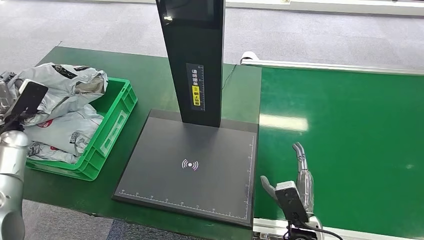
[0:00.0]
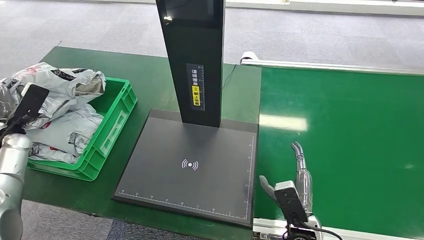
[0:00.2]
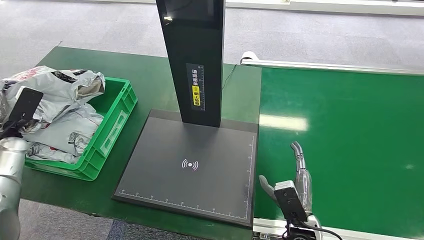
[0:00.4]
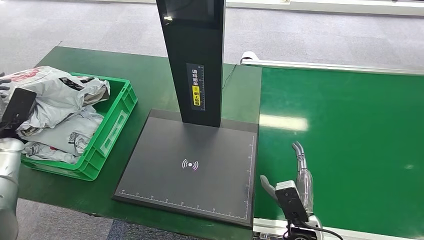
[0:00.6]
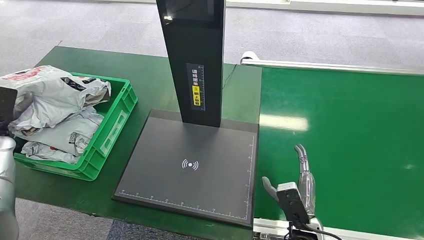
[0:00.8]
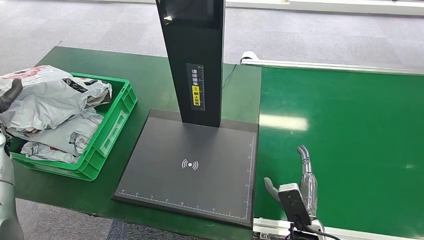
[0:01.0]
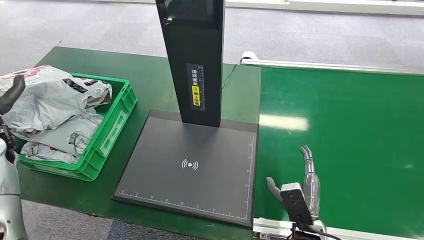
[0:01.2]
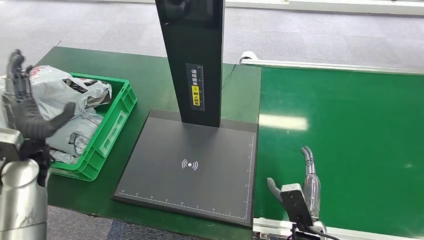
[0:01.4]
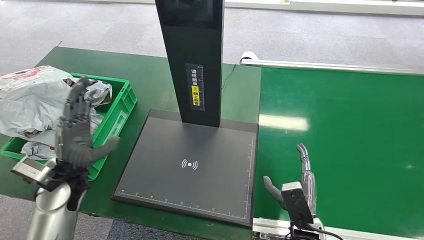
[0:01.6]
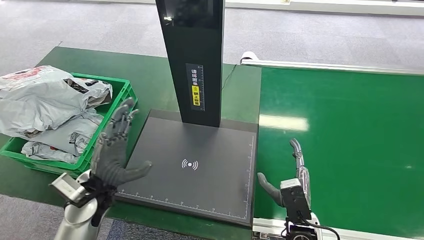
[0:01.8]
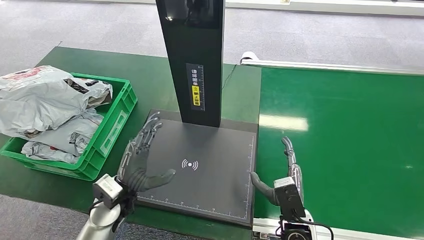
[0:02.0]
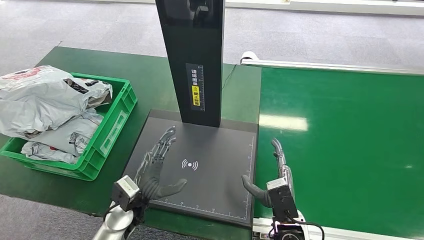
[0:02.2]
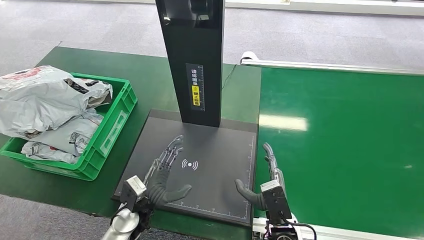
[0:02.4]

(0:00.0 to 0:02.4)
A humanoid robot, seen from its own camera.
Step, 0:00.0 - 0:02.4: Place the package into the parcel locker.
0:01.2 - 0:02.4: The right hand shifts roughly 5 cm to the left, while the left hand is displaced to the right and downward by about 35 cm.
